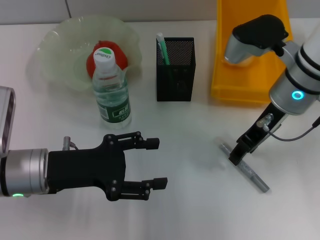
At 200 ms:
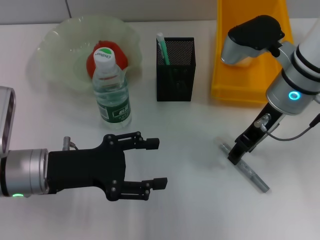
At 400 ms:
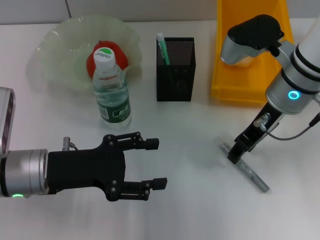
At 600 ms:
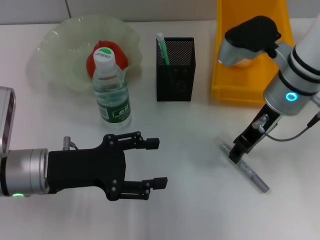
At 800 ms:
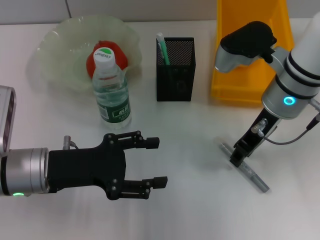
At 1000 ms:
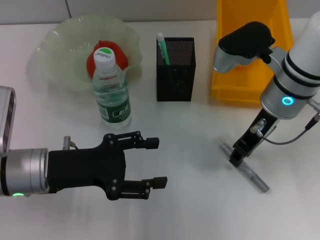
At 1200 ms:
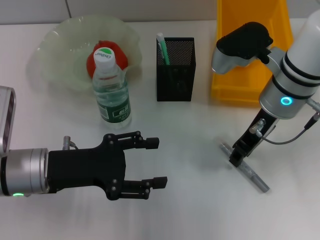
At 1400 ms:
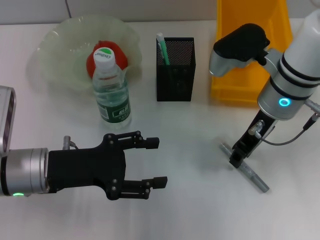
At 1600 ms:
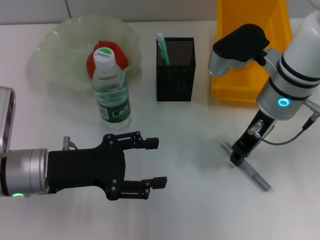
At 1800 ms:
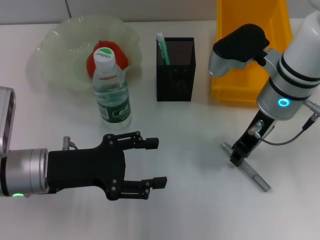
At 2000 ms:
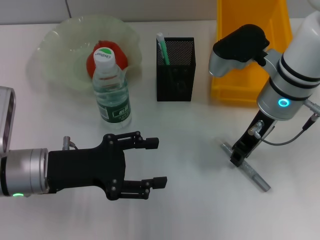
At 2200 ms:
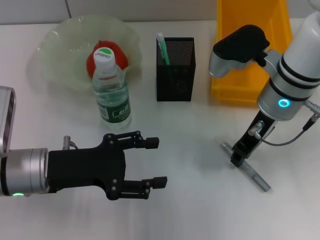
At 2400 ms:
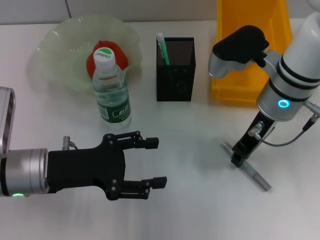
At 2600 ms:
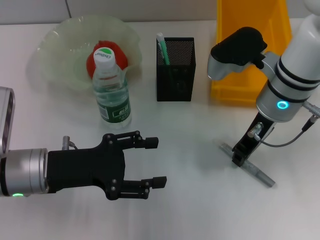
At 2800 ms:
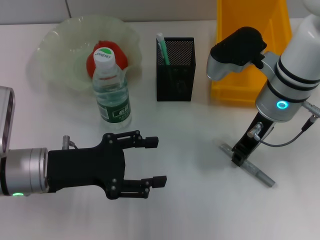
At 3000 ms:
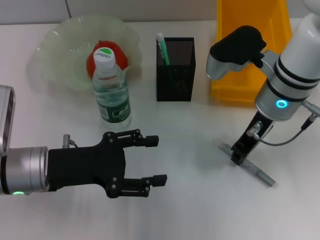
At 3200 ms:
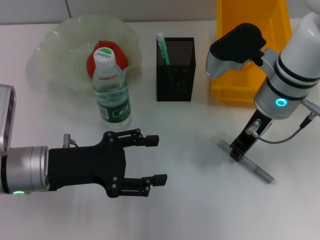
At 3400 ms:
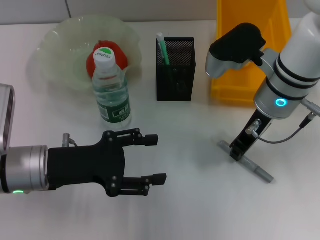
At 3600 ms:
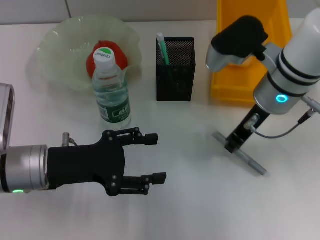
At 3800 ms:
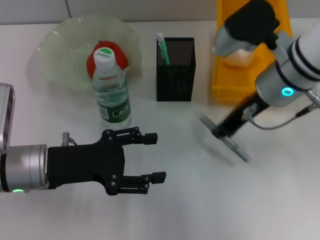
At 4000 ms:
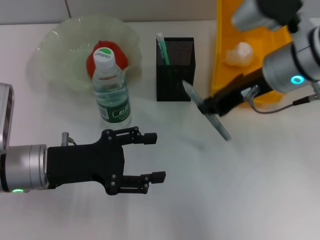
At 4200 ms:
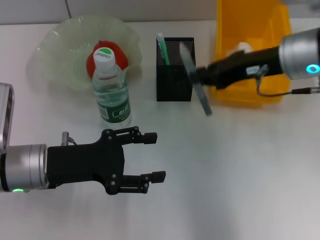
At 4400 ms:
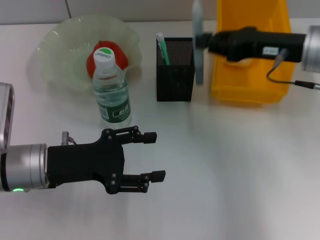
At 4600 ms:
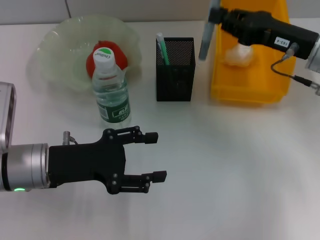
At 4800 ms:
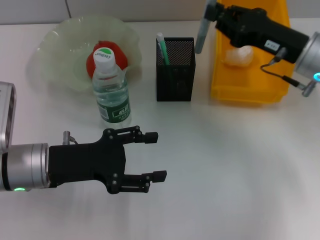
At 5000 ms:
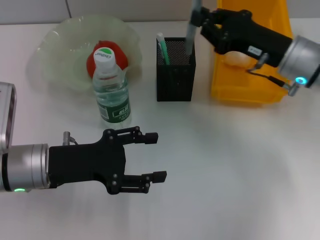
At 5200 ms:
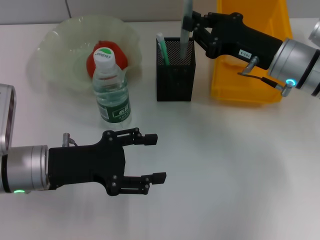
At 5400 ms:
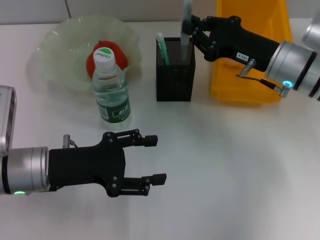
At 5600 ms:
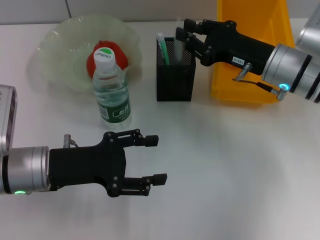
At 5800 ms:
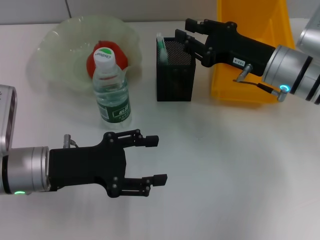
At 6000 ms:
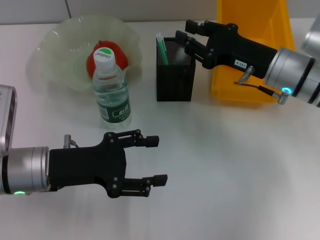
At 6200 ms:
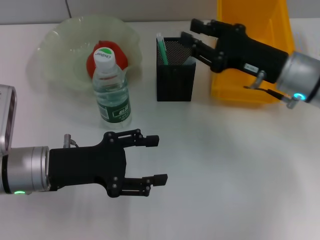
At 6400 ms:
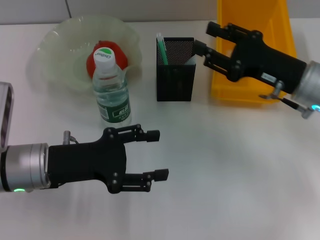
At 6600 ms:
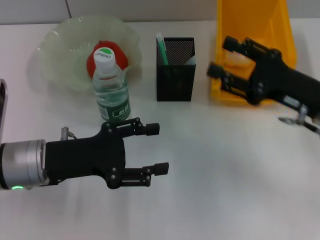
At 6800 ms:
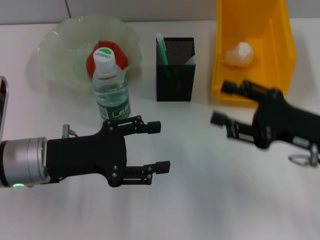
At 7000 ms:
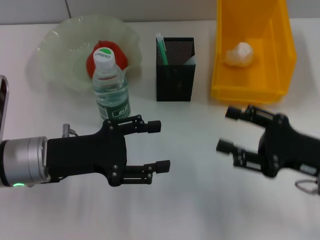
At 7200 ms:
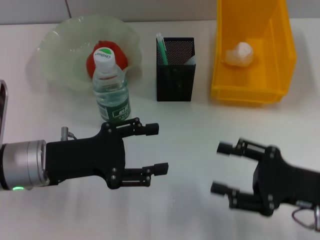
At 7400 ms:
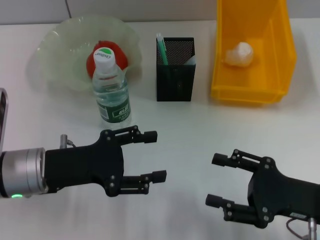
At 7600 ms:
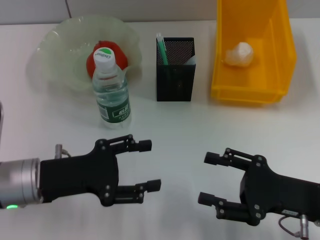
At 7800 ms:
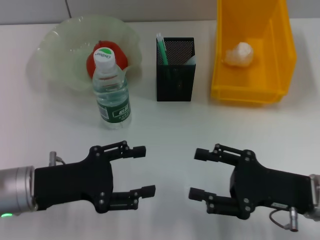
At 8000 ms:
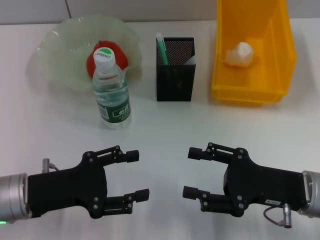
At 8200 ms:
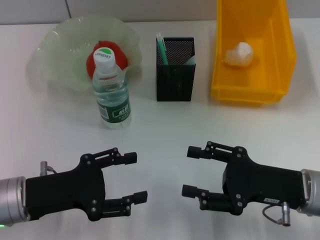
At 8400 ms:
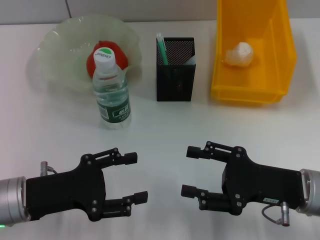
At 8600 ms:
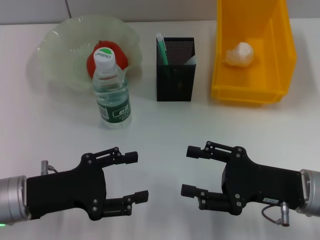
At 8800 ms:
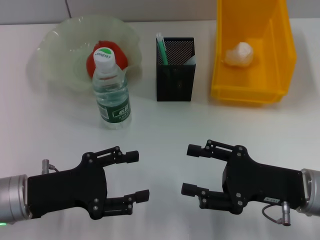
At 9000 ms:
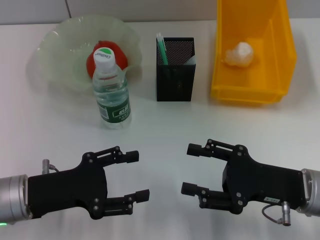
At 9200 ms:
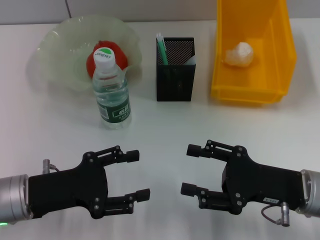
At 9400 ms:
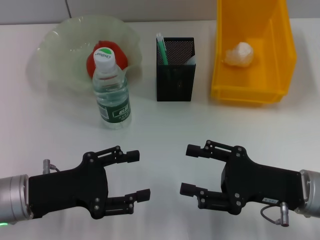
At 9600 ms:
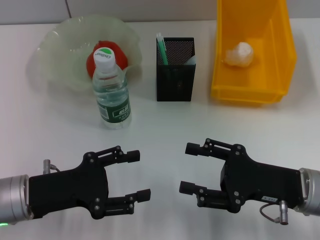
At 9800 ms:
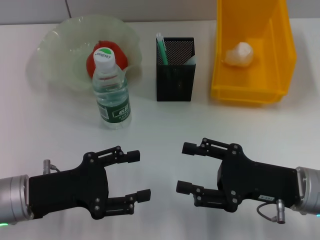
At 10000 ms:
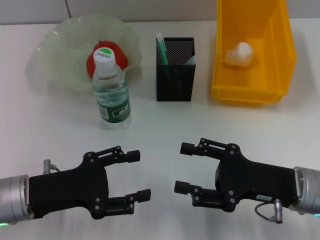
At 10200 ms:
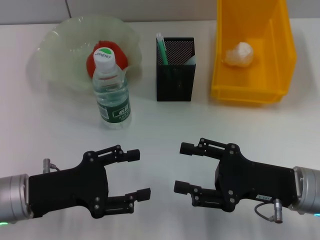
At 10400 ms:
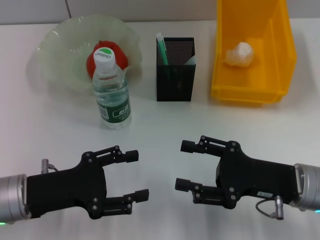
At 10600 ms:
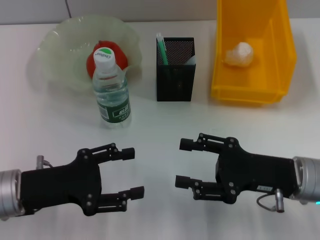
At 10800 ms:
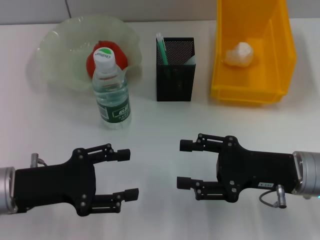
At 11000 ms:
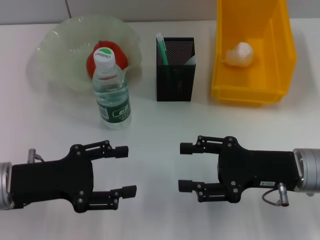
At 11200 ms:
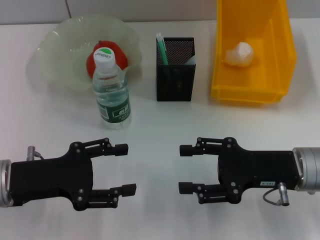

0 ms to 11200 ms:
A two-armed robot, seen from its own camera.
Step, 0 ms to 3200 ms: Grab the gray glue with the right hand.
Step, 3400 ms to 5600 ms: Place the gray glue into the pen holder with the right hand.
0 ms to 1600 ms: There are only small adjustments of the grippers.
1600 ms to 3200 ms: The two grippers keep their place.
3200 ms to 4800 ms: The right gripper goes roughly 10 cm to the right.
4800 ms to 6400 ms: The right gripper opens its fingers.
6400 ms to 8000 ms: The right gripper heads backward and downward, covering roughly 15 cm, and opens its fingers.
8000 ms to 9600 ms: Neither gripper changes place.
9600 ms to 11200 ms: The grippers move only a little.

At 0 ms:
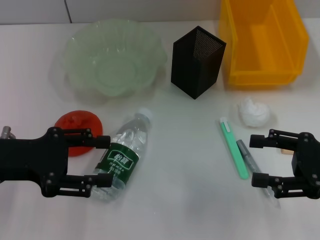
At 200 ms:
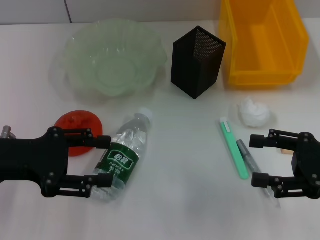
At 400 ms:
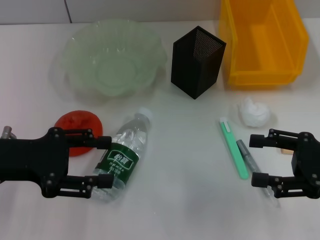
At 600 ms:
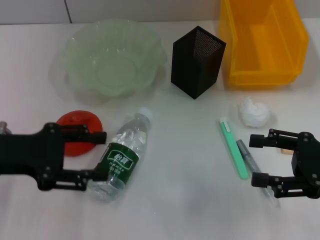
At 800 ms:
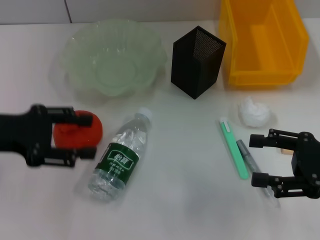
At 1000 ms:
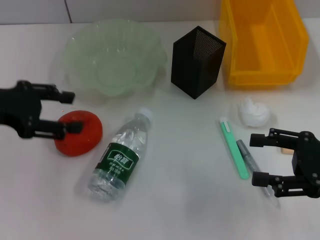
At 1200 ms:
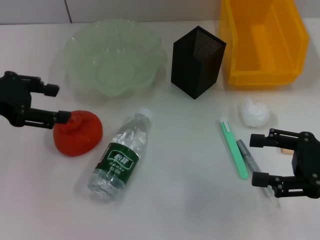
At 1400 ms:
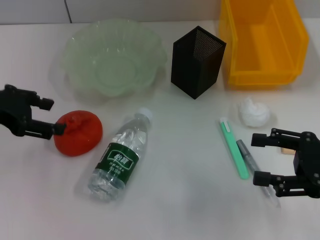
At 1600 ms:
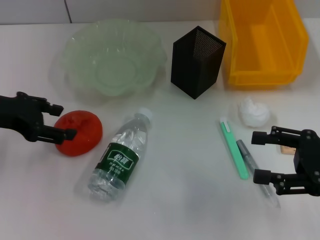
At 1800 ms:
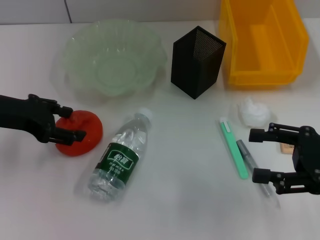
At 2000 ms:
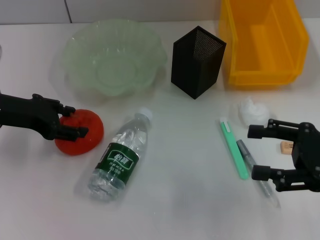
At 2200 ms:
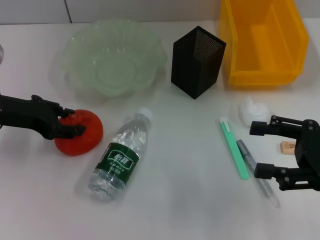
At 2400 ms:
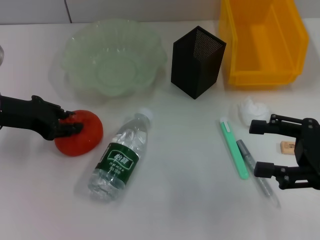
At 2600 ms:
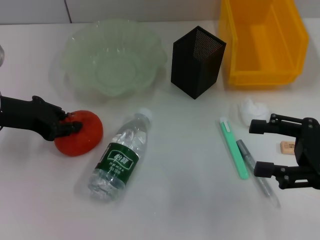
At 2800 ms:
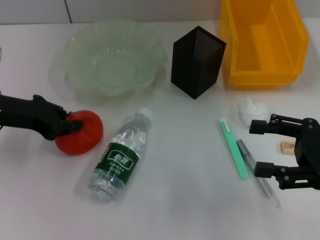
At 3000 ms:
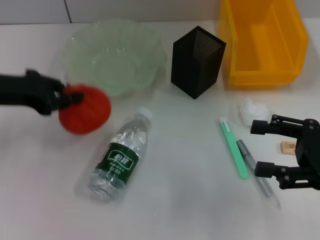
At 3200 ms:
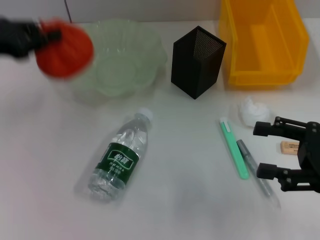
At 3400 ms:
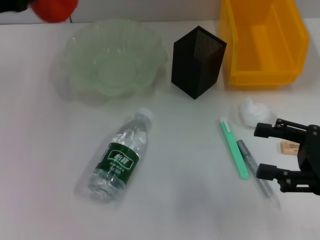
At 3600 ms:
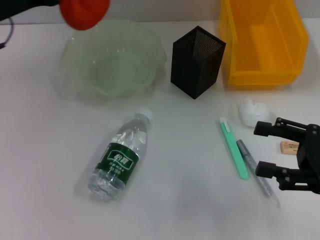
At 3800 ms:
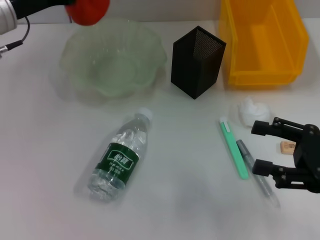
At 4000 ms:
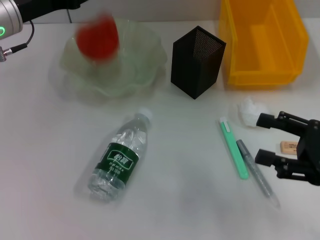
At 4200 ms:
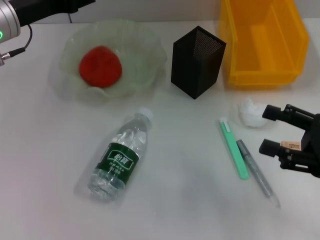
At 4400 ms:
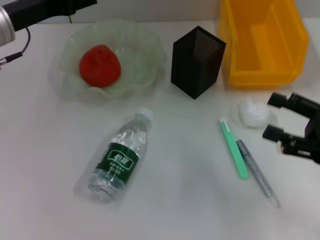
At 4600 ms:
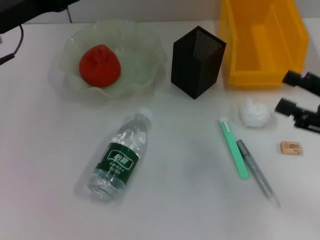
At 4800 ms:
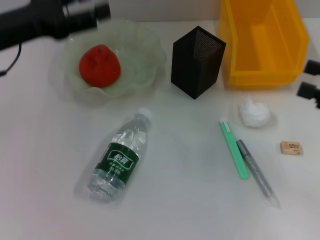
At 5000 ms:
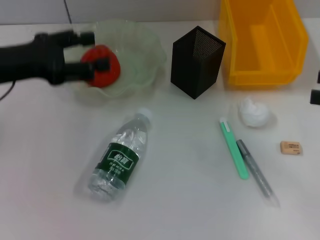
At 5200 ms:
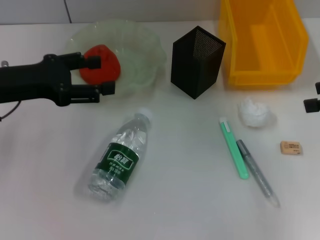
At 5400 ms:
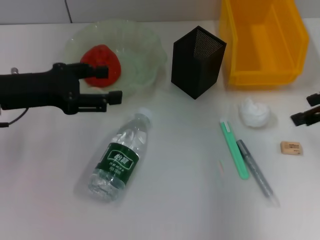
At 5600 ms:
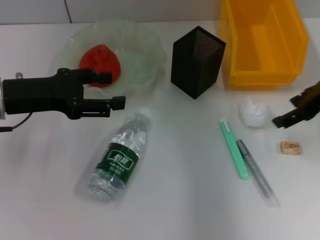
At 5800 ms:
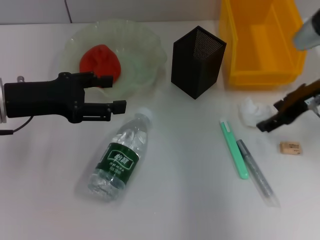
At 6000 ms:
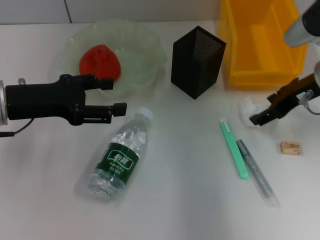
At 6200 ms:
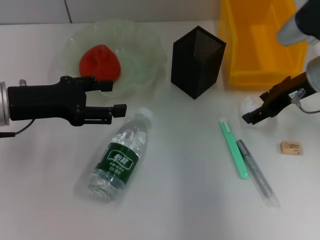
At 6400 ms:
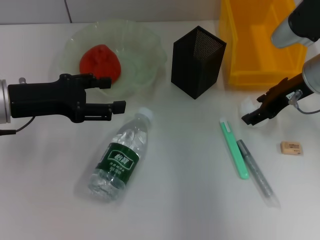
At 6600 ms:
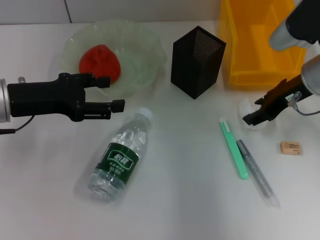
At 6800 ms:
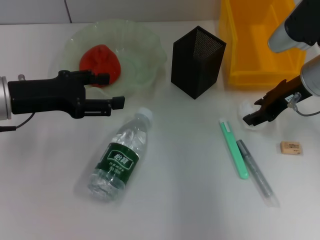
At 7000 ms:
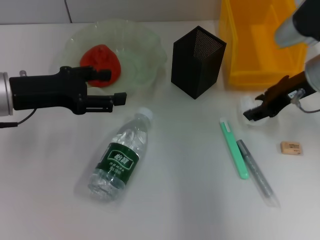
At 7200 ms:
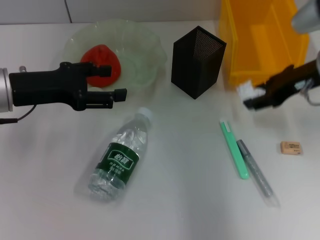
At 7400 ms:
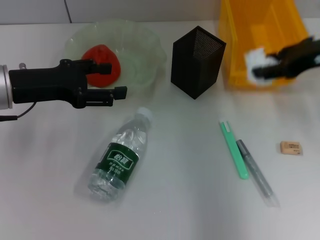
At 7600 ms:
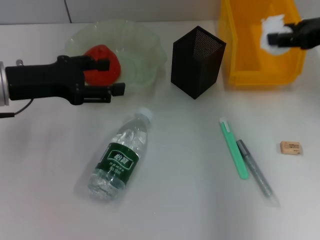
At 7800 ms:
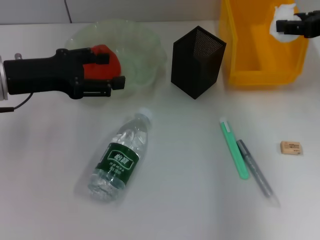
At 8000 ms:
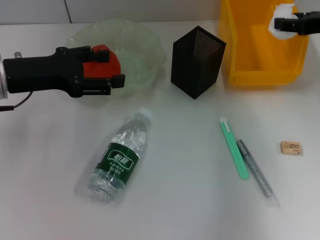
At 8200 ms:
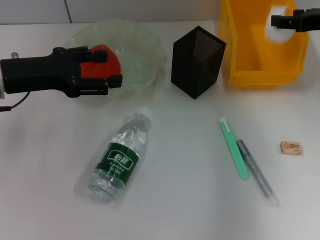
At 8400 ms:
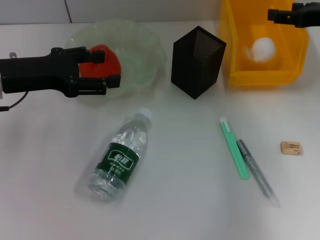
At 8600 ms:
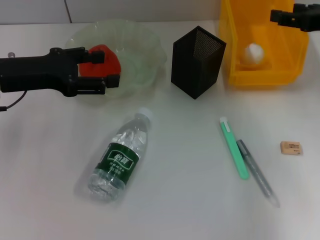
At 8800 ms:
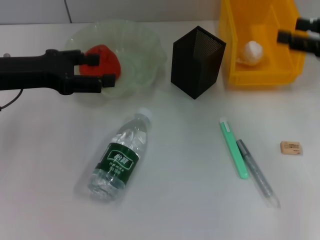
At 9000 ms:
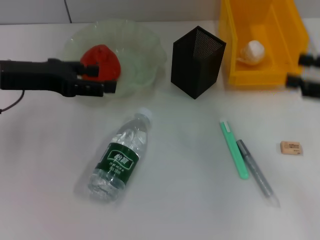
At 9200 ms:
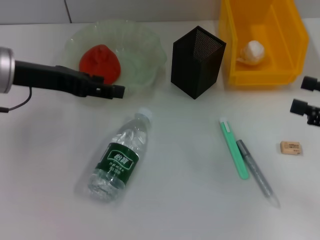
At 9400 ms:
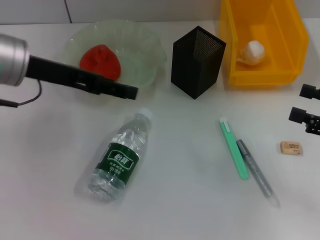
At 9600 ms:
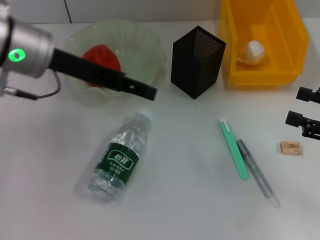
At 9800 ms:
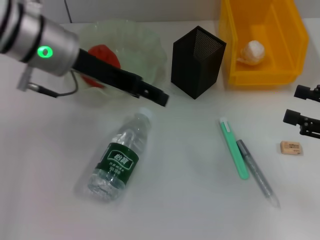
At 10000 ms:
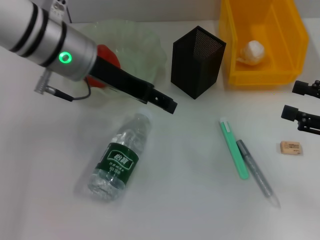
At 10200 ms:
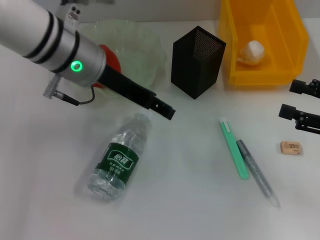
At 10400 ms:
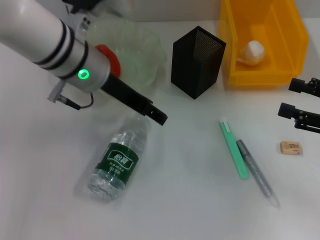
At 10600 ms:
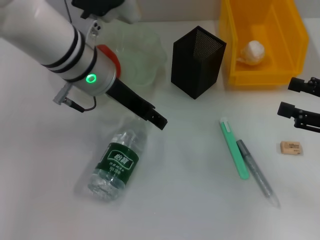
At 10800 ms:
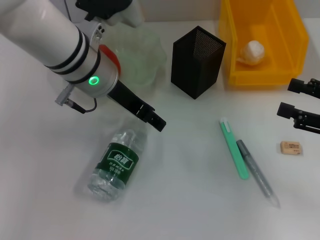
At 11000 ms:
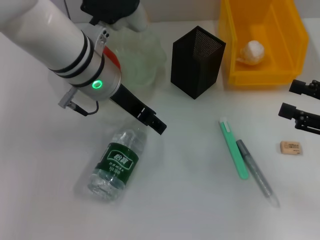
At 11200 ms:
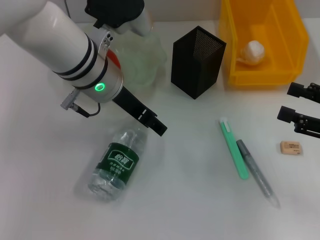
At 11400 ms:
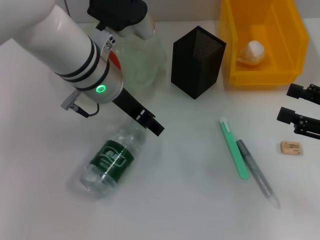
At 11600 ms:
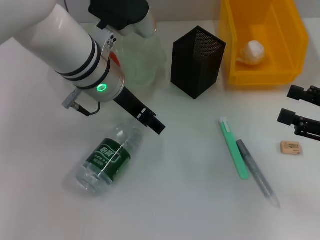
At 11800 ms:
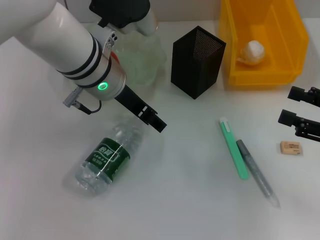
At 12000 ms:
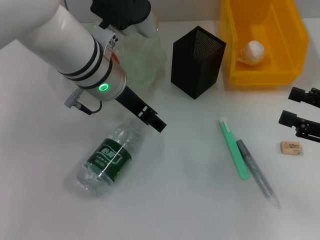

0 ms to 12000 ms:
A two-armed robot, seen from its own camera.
Step, 0 ms to 2400 ms: Grab the orange with the left hand.
Step, 2600 ms to 4000 ms: Place the orange into the fruit bowl with the left hand.
Step, 4200 ms to 6600 ms: Grab the paper ball with the right hand.
Step, 6800 ms to 8800 ms: Place the paper ball into the trash can with the right hand.
0 ms to 1600 ms: The left gripper is displaced forward by about 5 cm.
1600 ms to 3000 ms: The left gripper closes.
3000 ms to 4400 ms: The left gripper heads forward, covering approximately 5 cm, and opens.
4400 ms to 6000 ms: The right gripper travels forward and to the left by roughly 15 cm. Meanwhile the left gripper shifts some 10 cm backward, and opens up.
6000 ms to 7600 ms: The right gripper shifts approximately 5 cm upward, and closes.
7600 ms to 9000 ms: The right gripper heads backward, downward and to the right, covering about 10 cm.
9000 ms to 10400 ms: The left gripper moves to the right, approximately 15 cm.
10400 ms to 12000 ms: The grippers move only a little.
